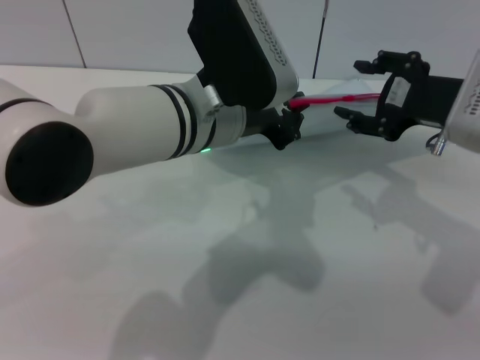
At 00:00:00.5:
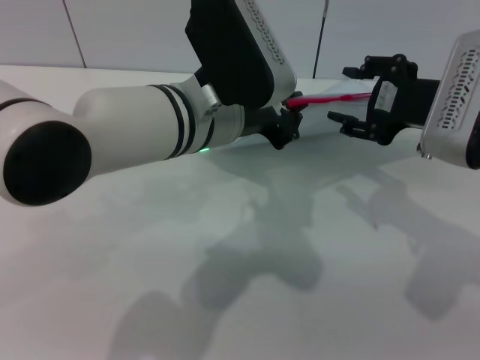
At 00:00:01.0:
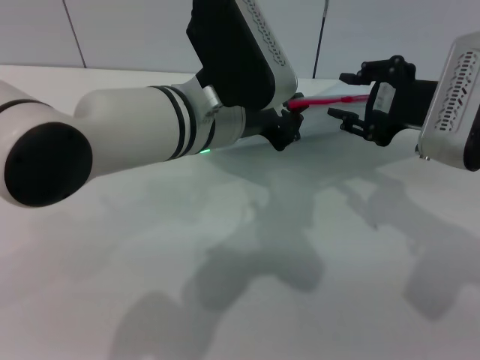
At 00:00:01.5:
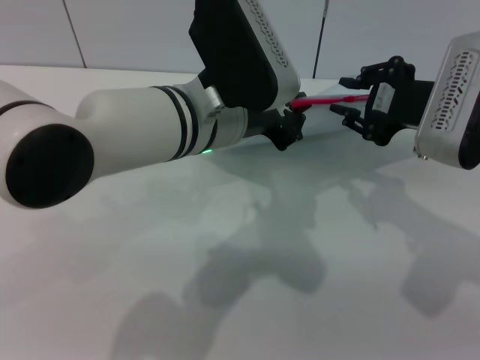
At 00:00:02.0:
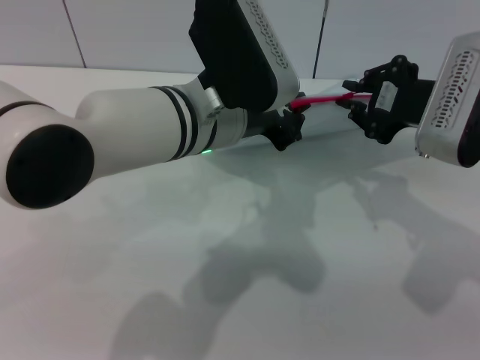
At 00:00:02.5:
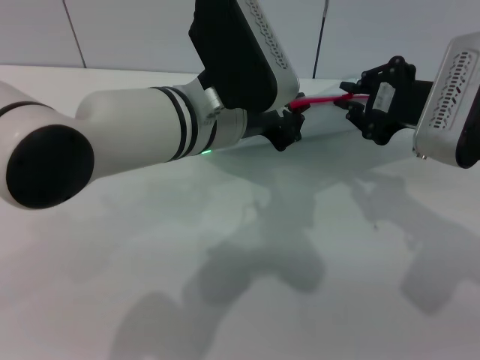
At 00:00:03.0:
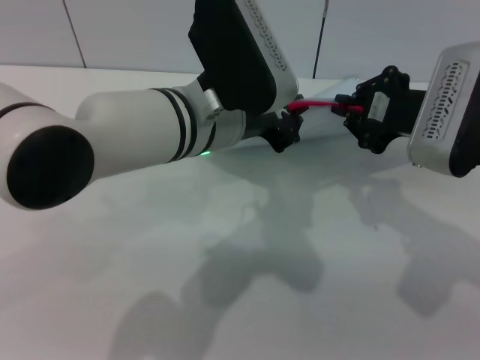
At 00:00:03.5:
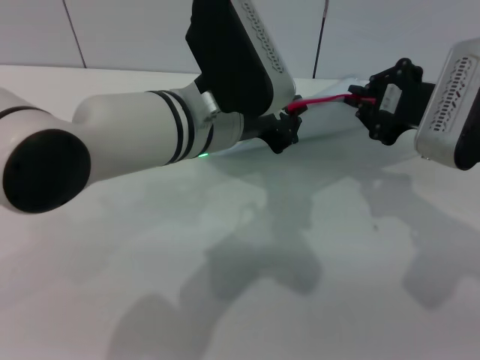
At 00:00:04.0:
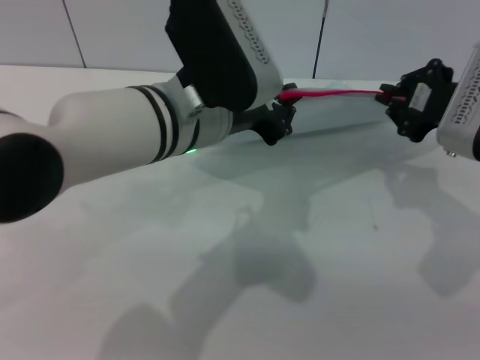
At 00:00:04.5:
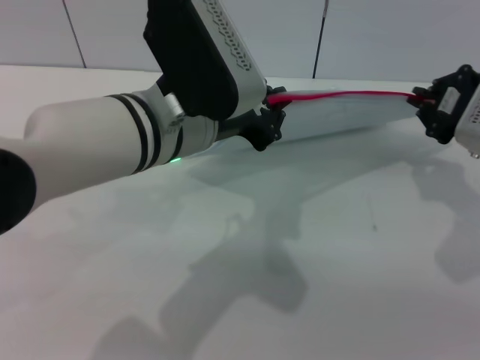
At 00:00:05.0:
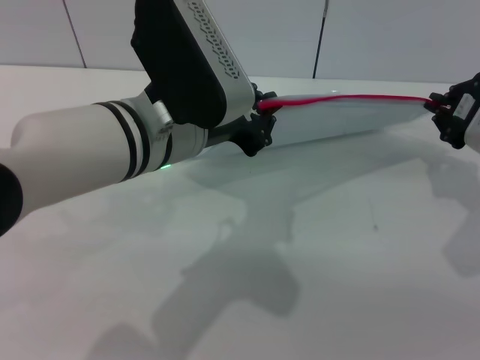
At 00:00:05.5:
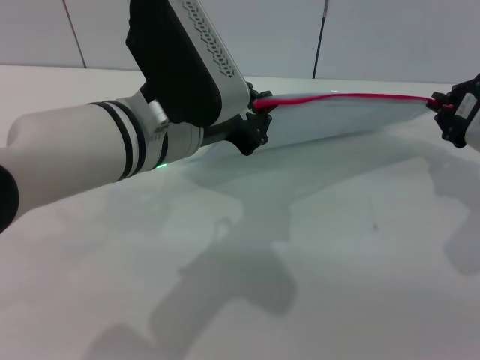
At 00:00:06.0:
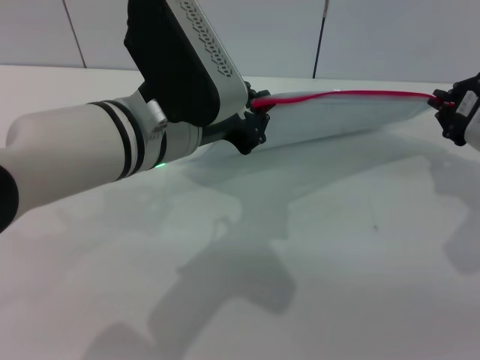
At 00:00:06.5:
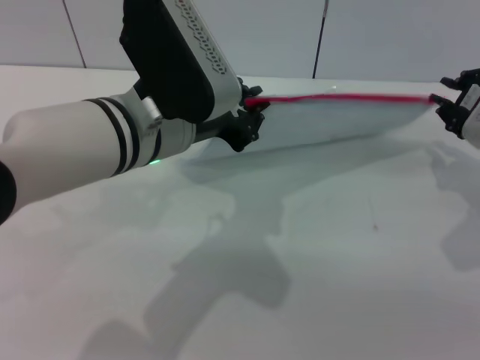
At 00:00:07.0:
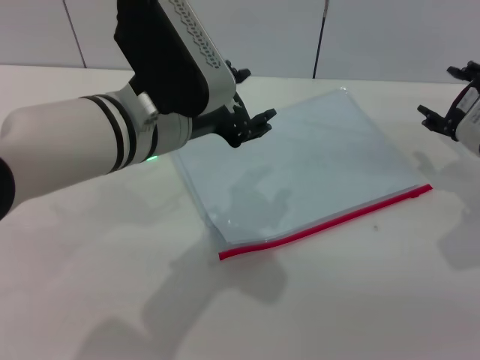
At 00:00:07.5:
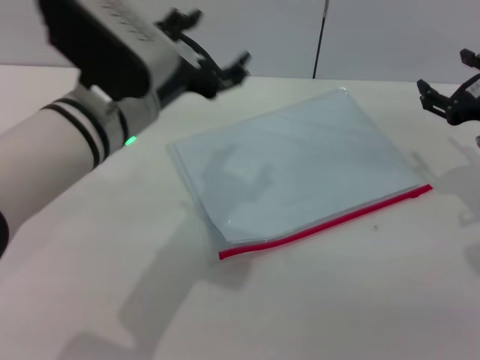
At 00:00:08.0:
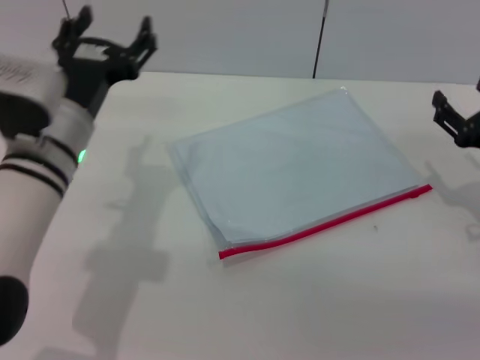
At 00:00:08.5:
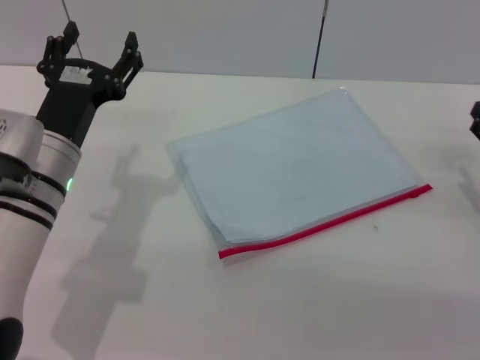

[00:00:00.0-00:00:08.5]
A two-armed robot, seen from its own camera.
Step, 00:00:00.0 to 00:00:06.0: Pulling up the zipper on the transparent plastic bag with the right gripper to close it.
00:00:00.0 to 00:00:02.0: The right gripper closes its fingers.
00:00:02.0 to 00:00:04.0: The grippers move only a little.
00:00:04.0 to 00:00:06.5: The right gripper changes place by roughly 5 cm.
00:00:06.5 to 00:00:08.5: The left gripper shifts about 15 cm downward and to the left, and opens its fingers, while the right gripper is displaced downward and backward by roughly 10 cm, and opens.
